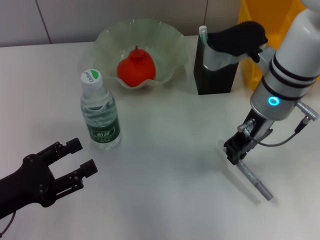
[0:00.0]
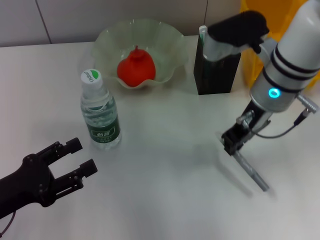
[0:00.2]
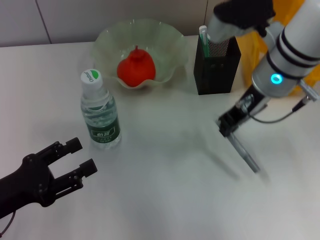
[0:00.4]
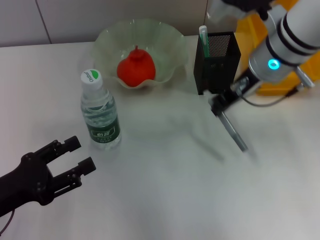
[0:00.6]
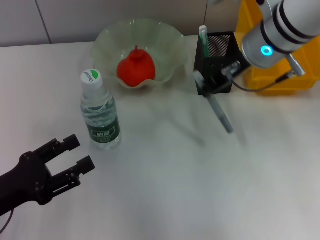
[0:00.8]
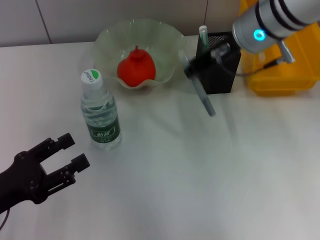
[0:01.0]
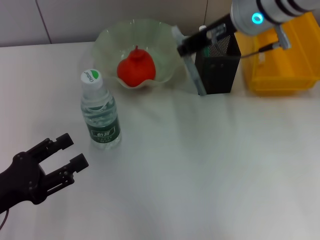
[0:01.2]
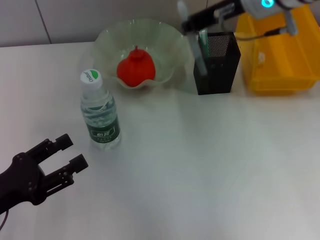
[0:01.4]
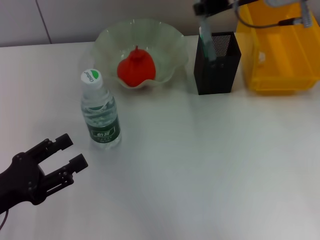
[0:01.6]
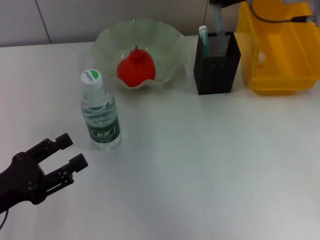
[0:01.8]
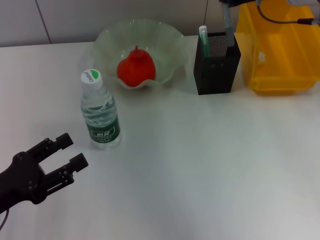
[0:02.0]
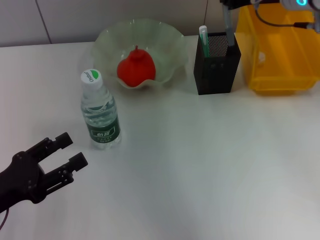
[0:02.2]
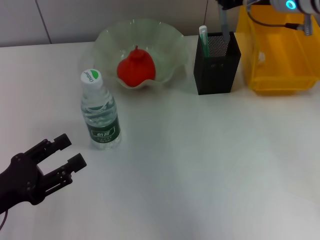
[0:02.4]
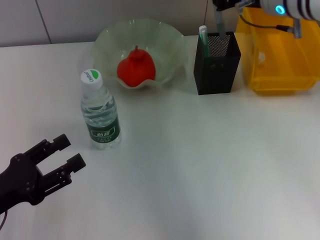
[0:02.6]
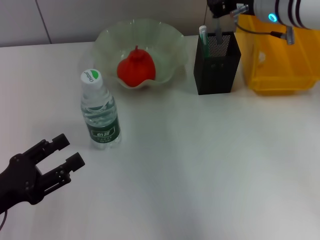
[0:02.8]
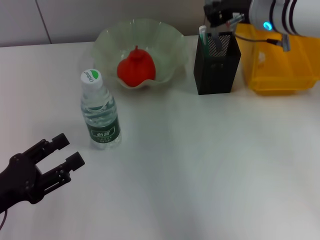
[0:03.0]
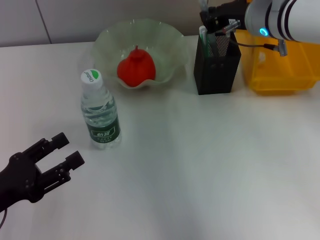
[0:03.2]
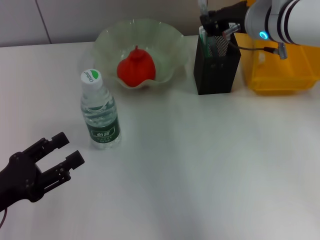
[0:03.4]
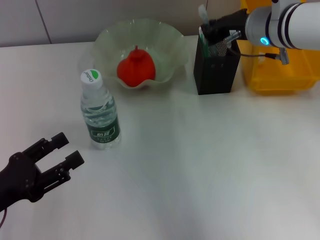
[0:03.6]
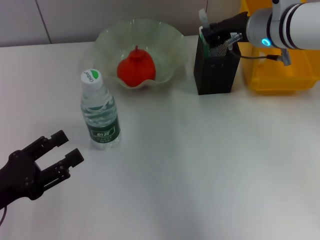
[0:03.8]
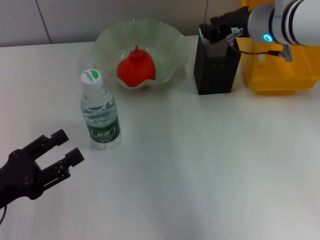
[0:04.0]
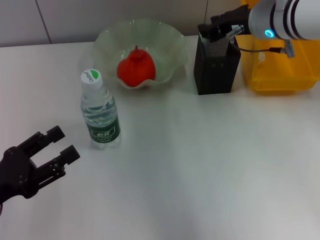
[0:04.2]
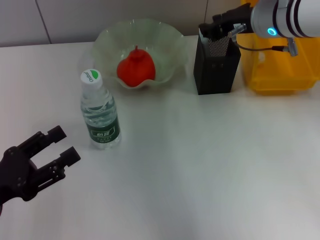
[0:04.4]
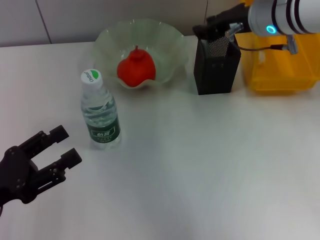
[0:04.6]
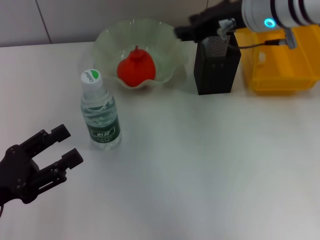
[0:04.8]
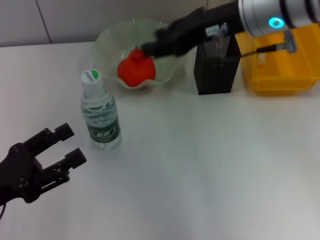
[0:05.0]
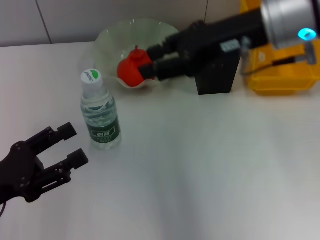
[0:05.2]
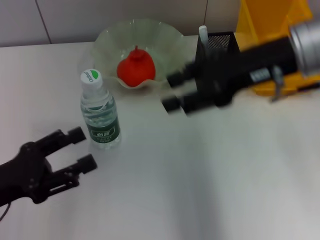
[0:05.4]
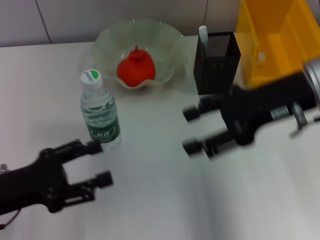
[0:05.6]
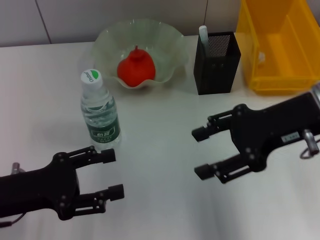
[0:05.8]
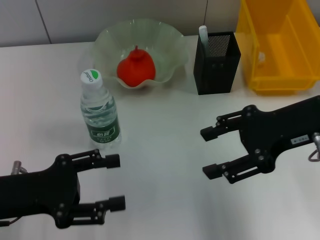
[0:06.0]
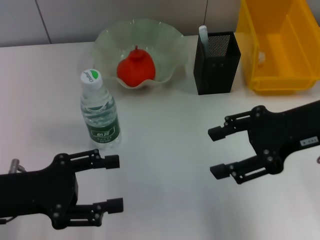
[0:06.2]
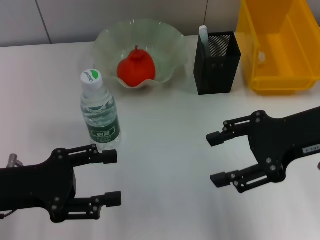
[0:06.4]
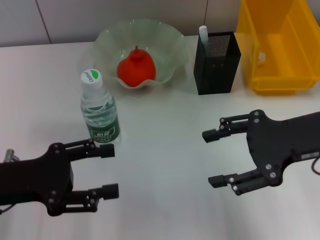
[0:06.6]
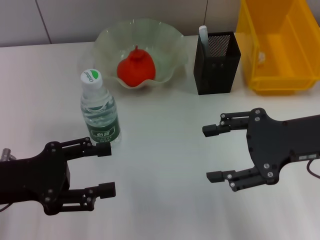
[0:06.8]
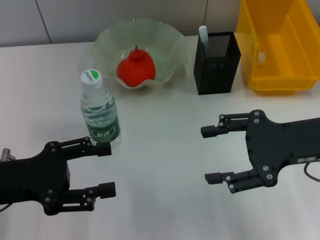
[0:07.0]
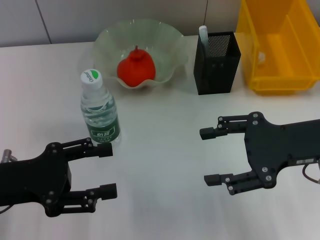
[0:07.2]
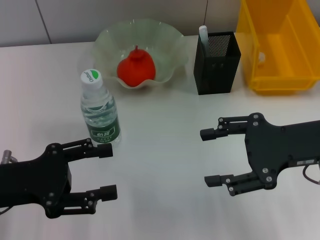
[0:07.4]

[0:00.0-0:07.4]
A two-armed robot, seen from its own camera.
Step, 0:00.0 to 0:04.0: Place the gray glue into the pen holder with the right hand.
0:00.0 to 0:01.4: The right gripper goes roughly 10 cm upward.
0:01.4 to 0:03.0: The right gripper is displaced downward by some 5 cm.
0:03.0 to 0:04.4: There are only small adjustments of the grippers.
0:04.4 to 0:06.0: The left gripper ends up roughly 5 cm from where it was. Meanwhile the right gripper is displaced backward by some 15 cm, and opens its fingers.
